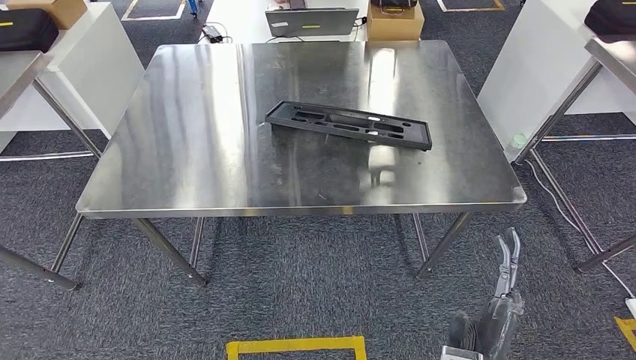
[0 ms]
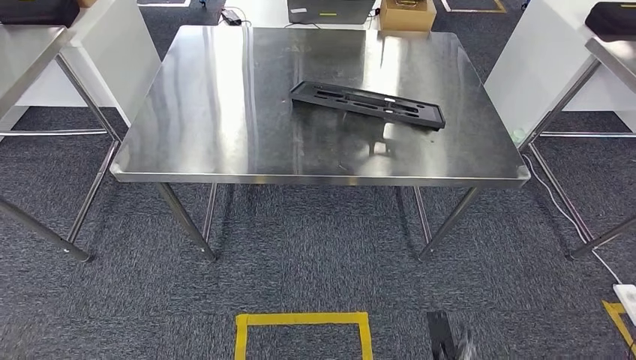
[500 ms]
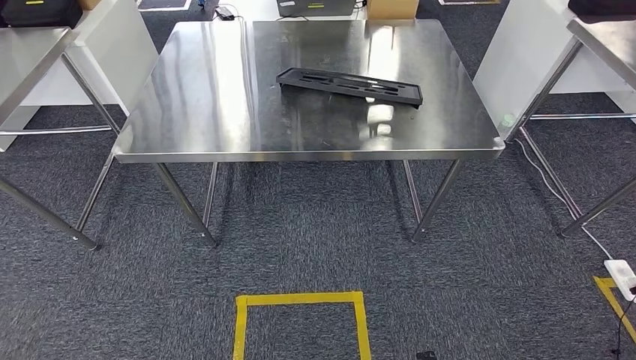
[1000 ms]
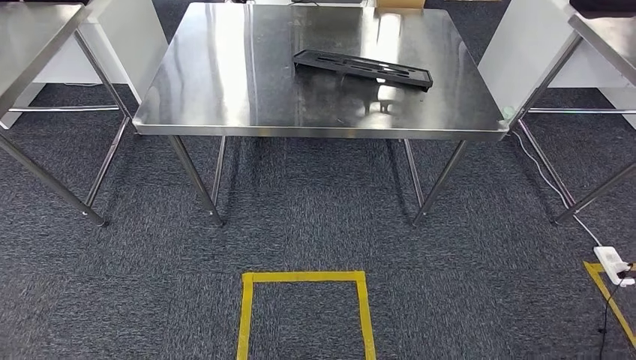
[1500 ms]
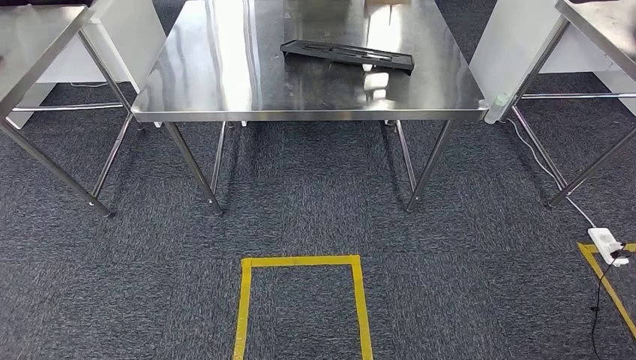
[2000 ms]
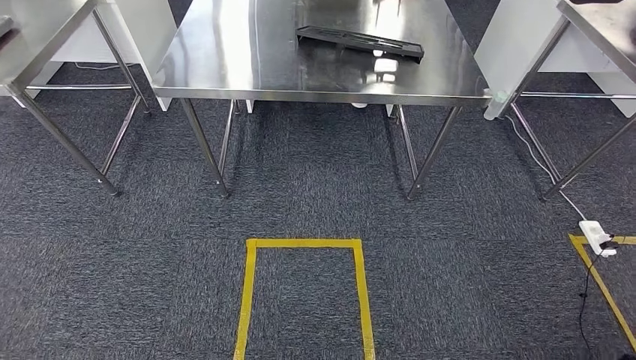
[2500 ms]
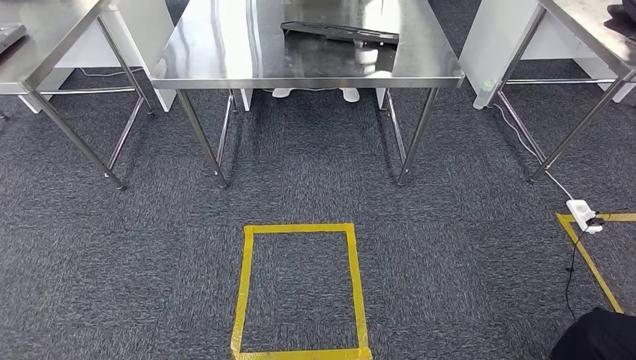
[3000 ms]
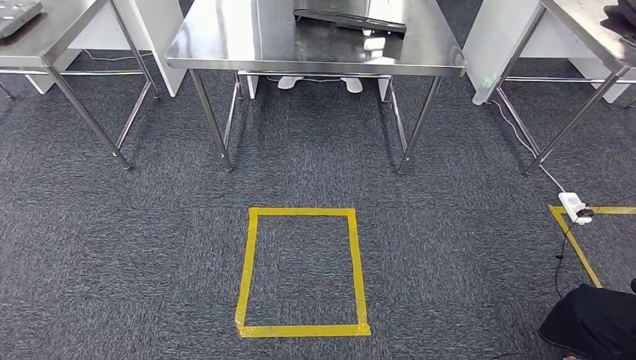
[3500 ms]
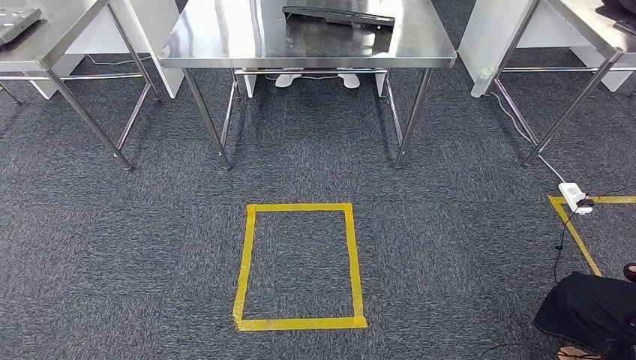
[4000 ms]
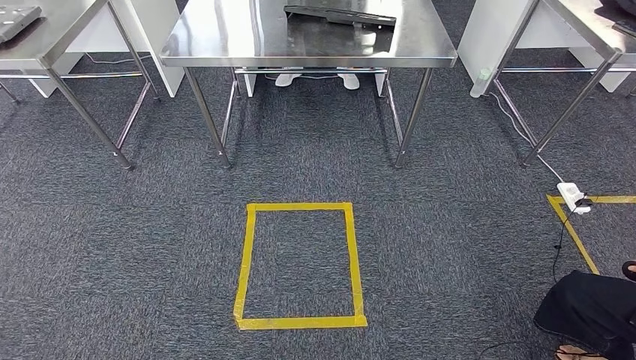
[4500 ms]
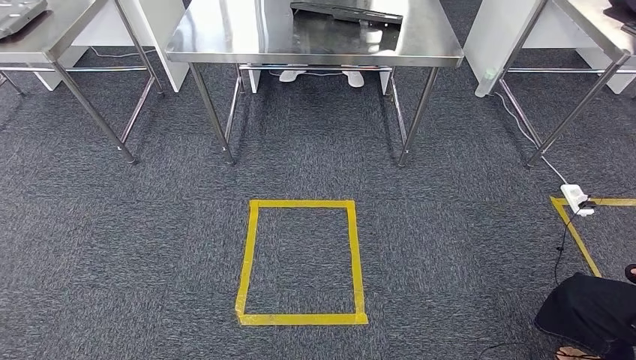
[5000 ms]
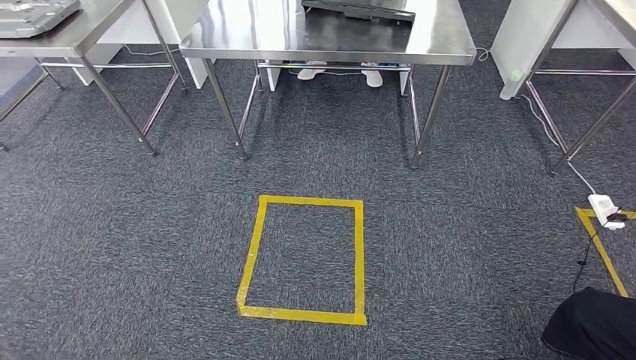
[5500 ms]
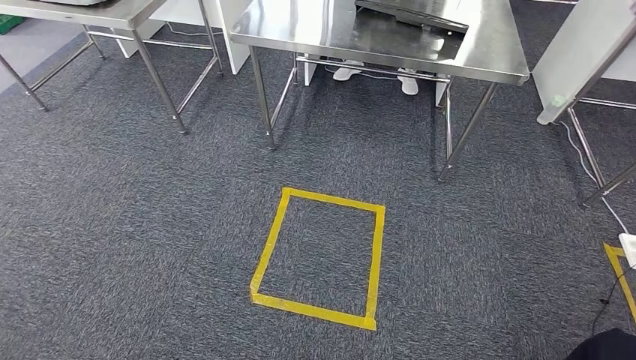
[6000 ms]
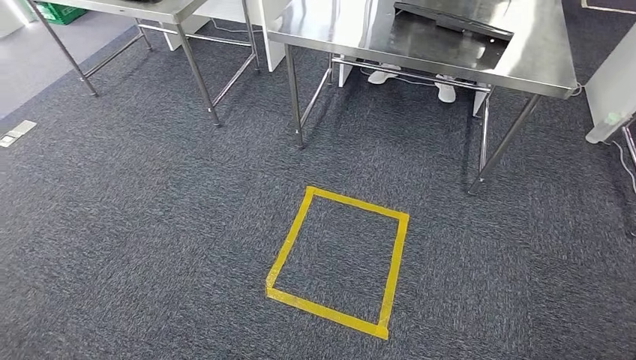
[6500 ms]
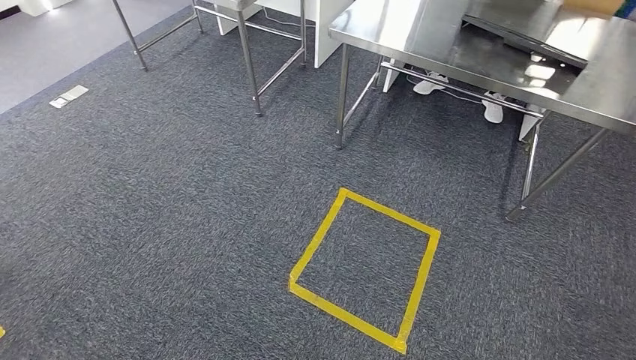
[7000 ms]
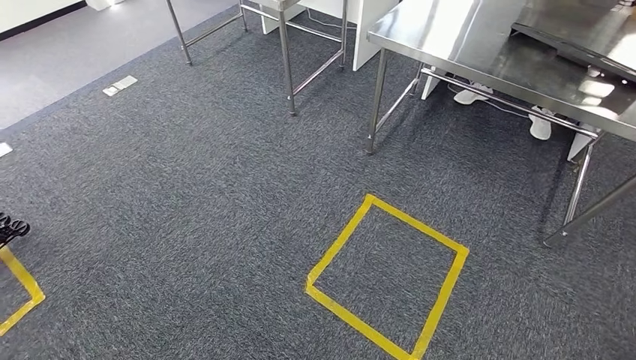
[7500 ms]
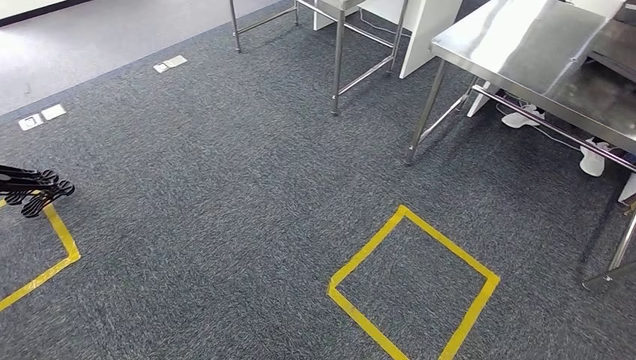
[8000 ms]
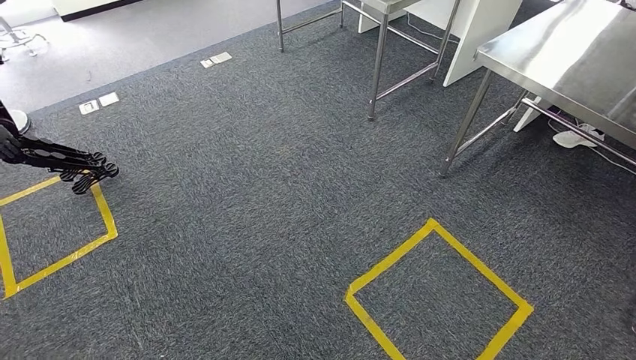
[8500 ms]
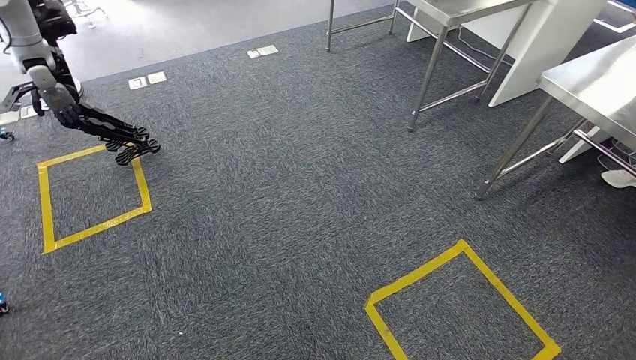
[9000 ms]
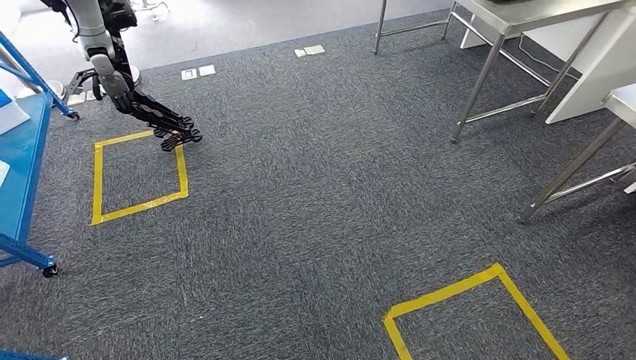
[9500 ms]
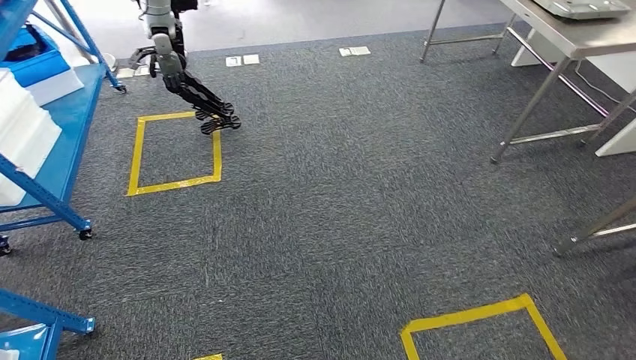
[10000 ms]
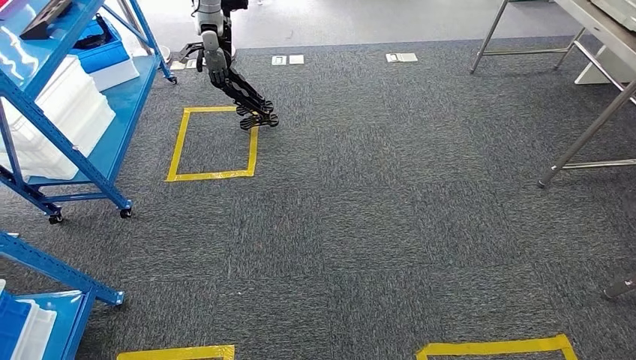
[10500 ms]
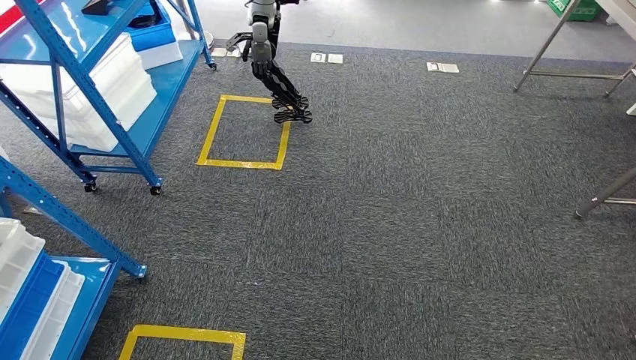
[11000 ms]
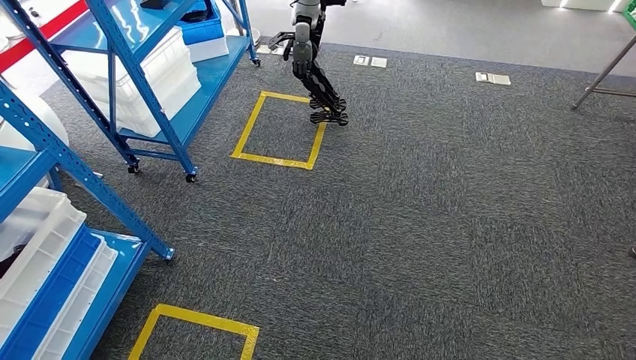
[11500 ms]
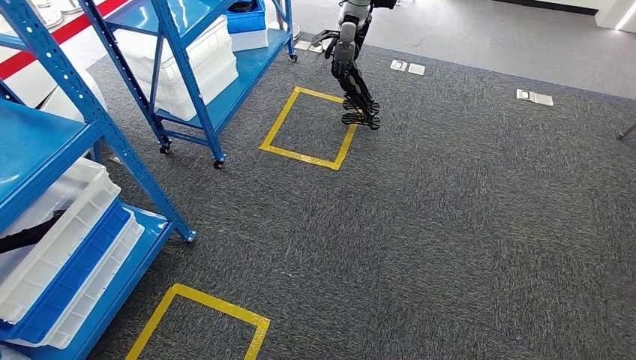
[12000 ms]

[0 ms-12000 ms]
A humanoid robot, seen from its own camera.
Step, 0 ms to 2000 ms: Insert the large material into the corresponding slot on the workbench.

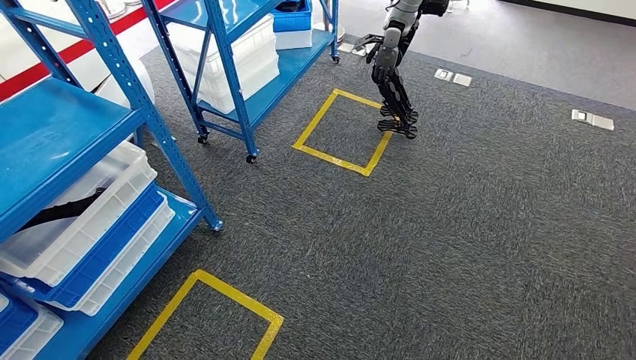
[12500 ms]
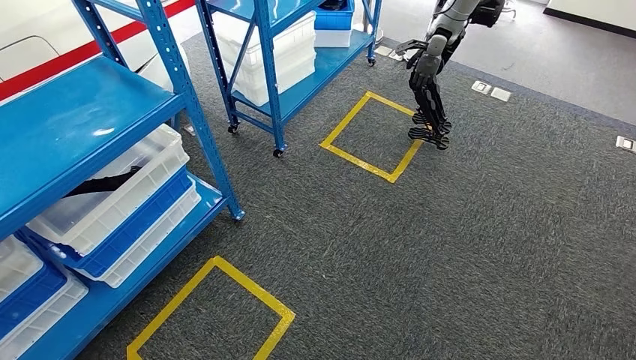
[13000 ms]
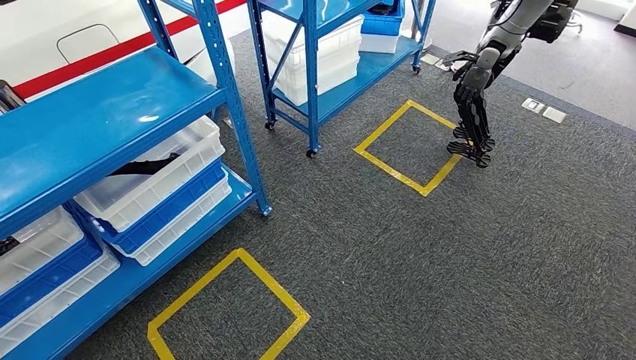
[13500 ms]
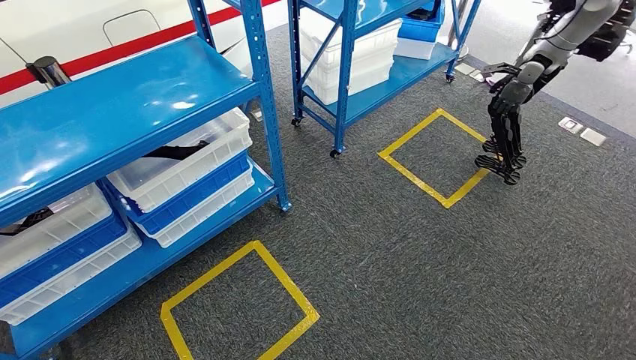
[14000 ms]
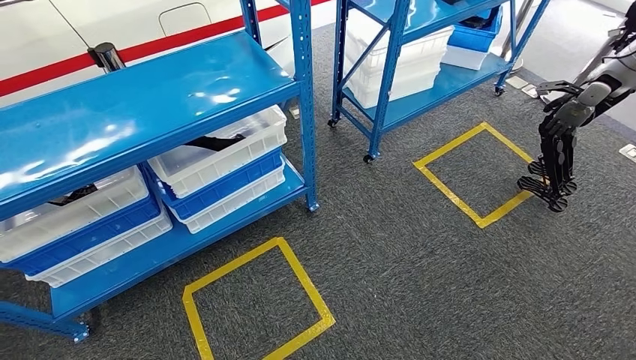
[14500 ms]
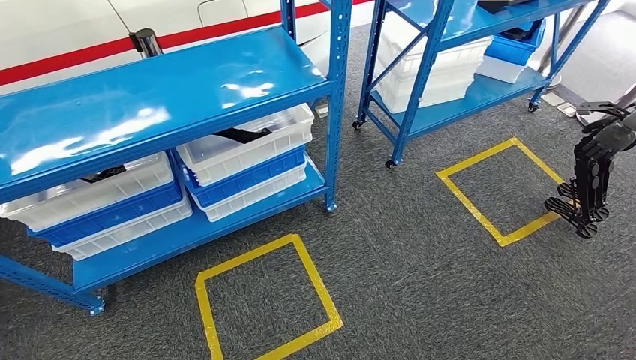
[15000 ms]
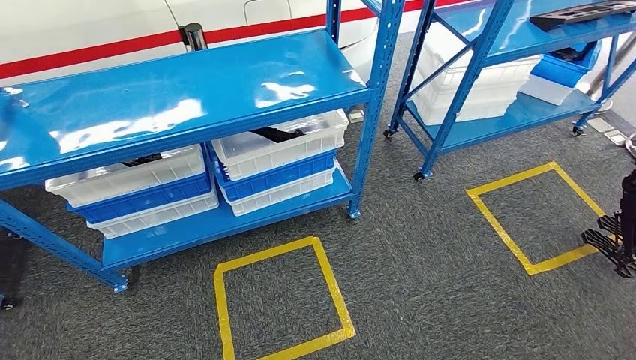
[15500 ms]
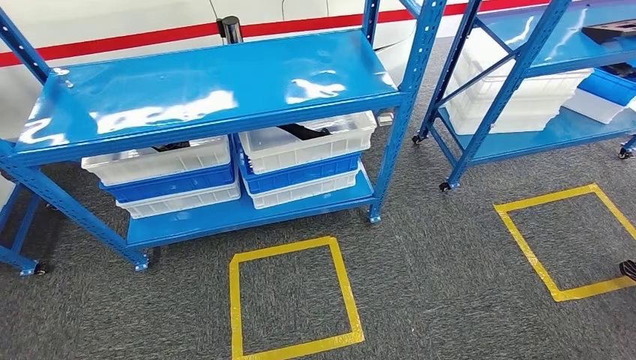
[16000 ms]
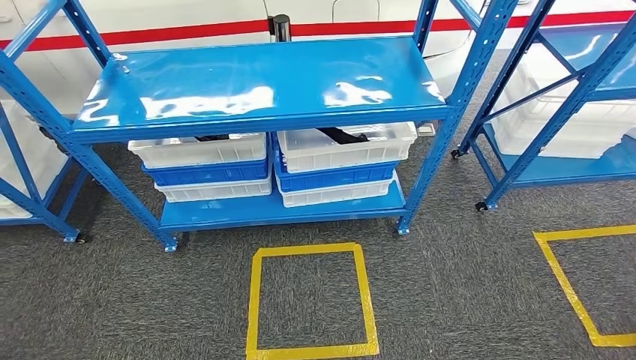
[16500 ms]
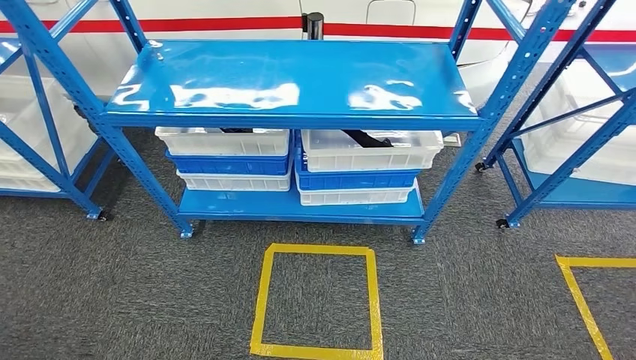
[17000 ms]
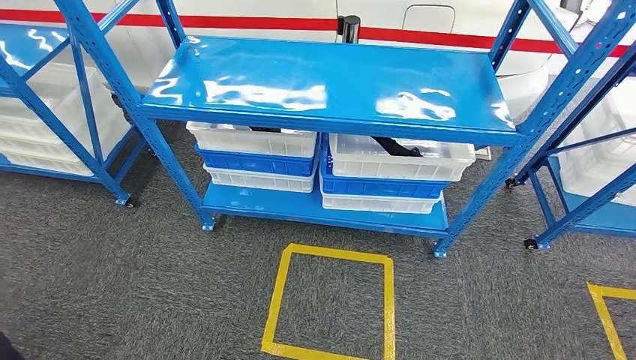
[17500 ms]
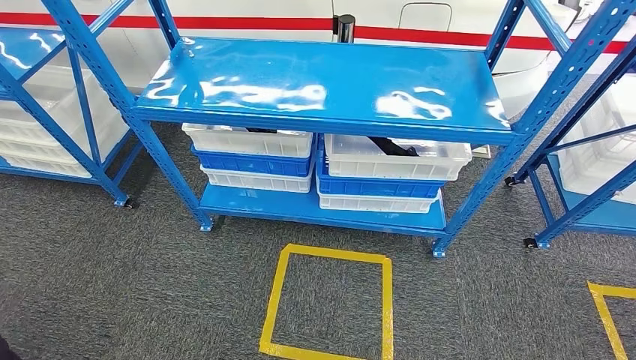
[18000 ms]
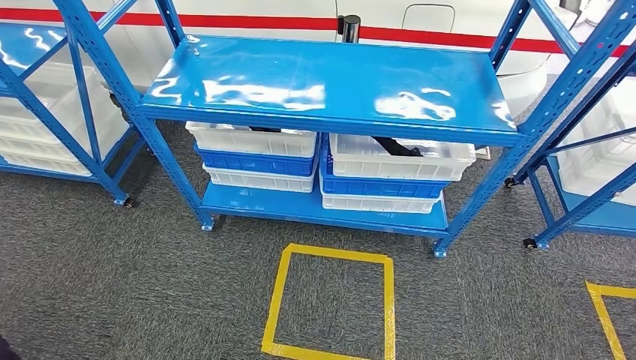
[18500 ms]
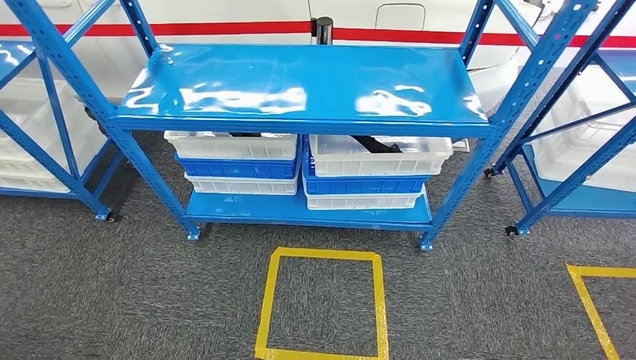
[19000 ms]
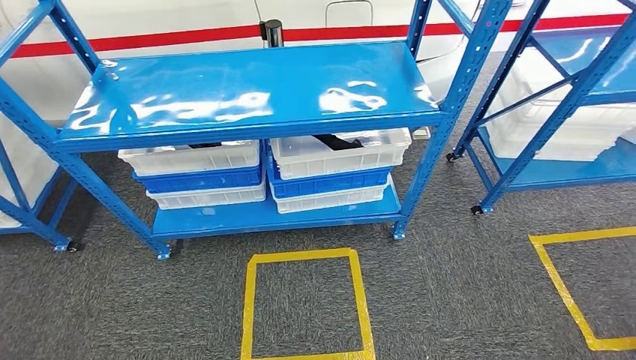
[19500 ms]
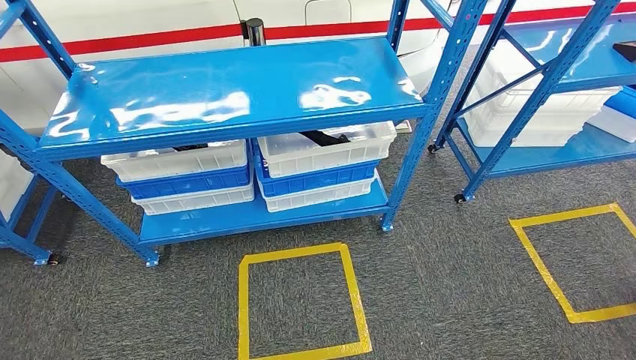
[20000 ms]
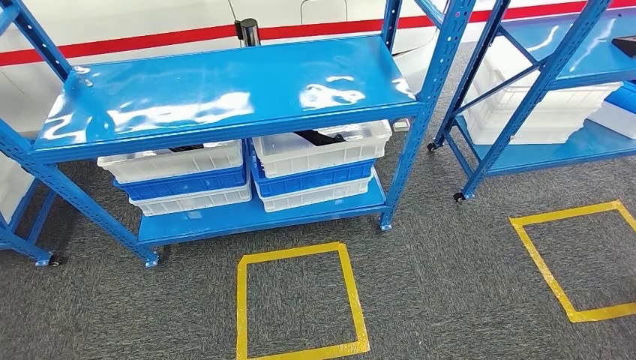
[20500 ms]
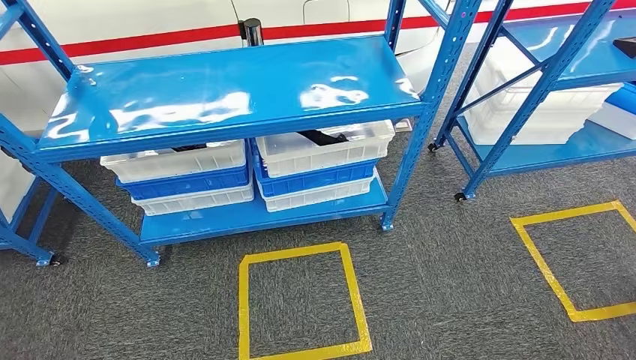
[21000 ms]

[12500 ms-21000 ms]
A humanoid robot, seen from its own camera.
Step, 12500 ms to 20500 ms: Move to the initial position of the shelf.
